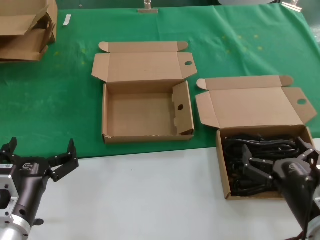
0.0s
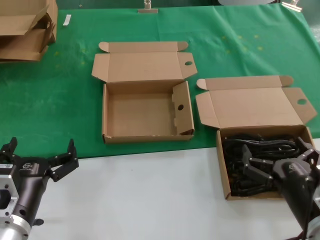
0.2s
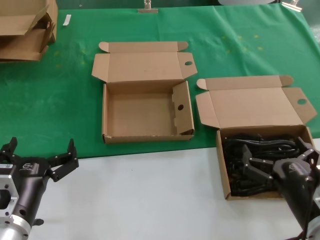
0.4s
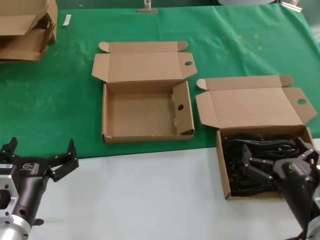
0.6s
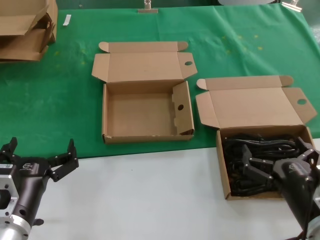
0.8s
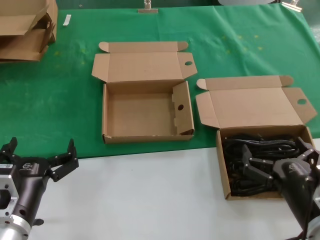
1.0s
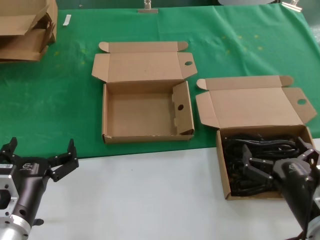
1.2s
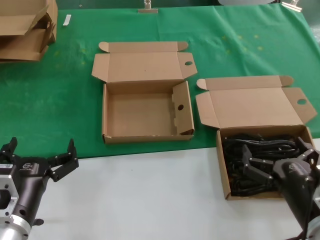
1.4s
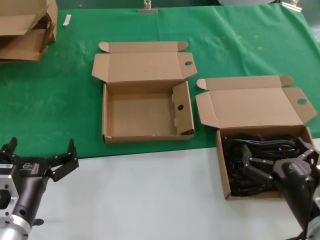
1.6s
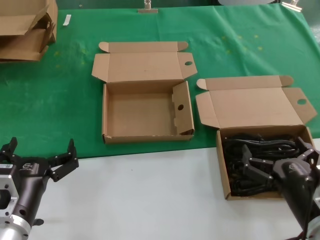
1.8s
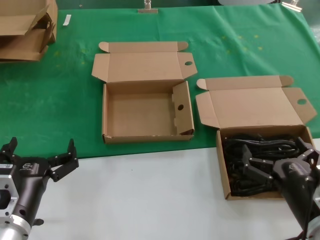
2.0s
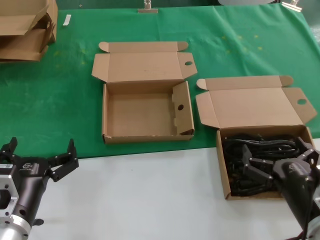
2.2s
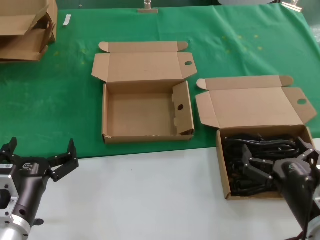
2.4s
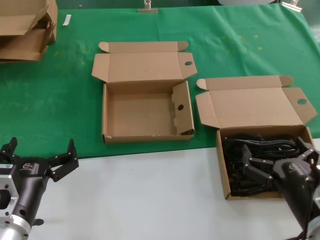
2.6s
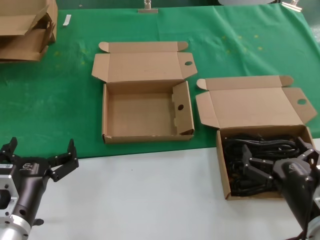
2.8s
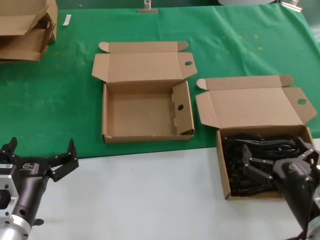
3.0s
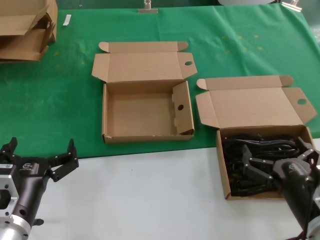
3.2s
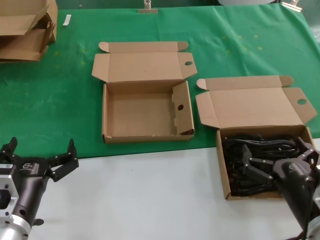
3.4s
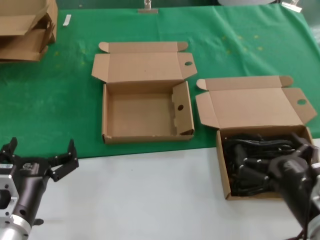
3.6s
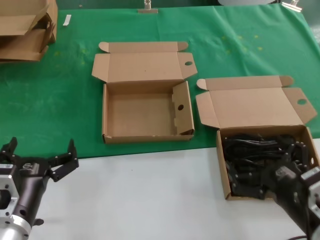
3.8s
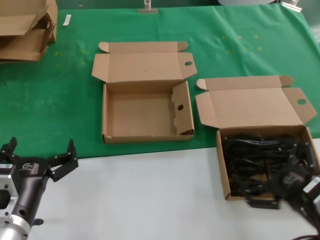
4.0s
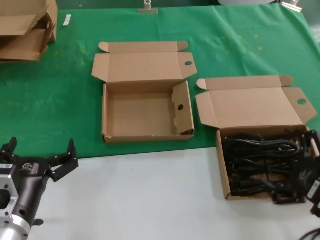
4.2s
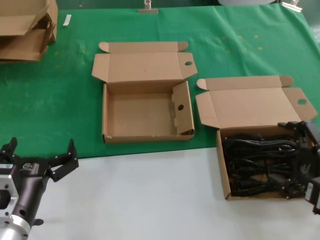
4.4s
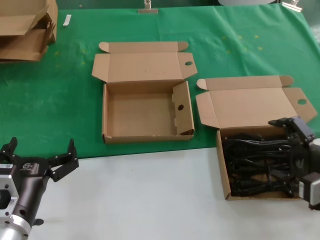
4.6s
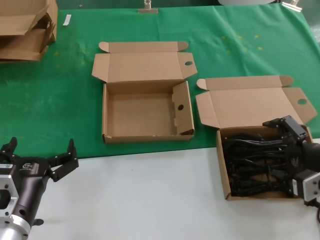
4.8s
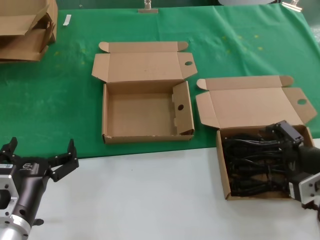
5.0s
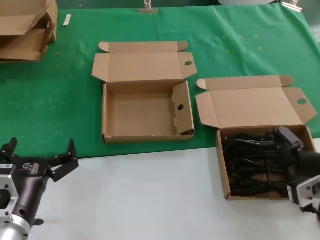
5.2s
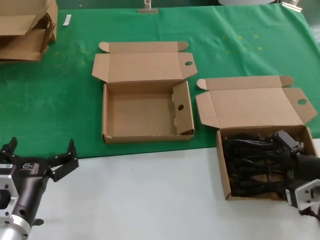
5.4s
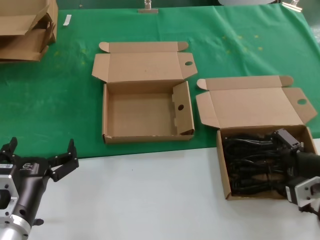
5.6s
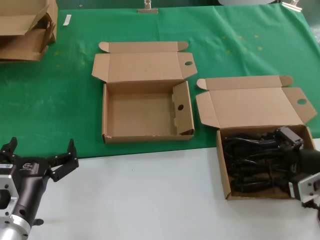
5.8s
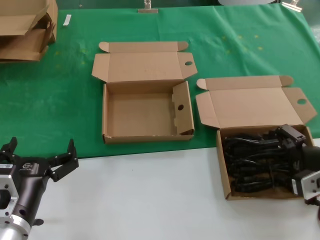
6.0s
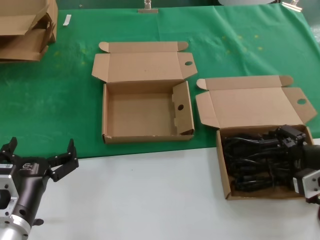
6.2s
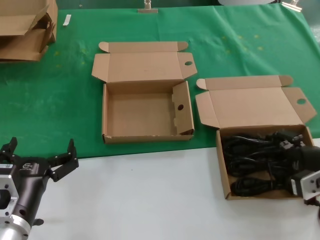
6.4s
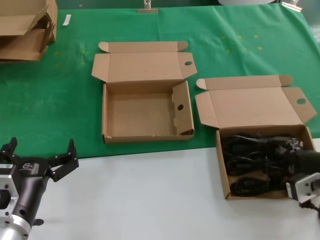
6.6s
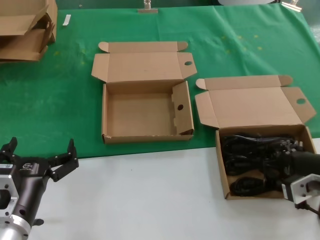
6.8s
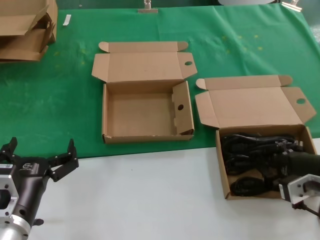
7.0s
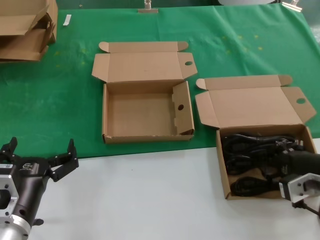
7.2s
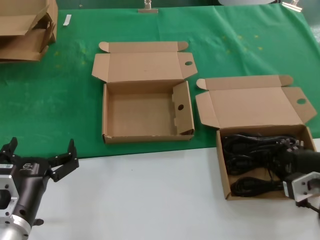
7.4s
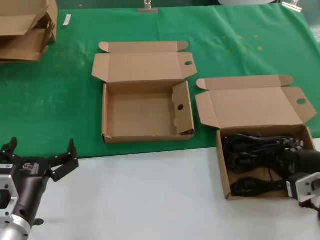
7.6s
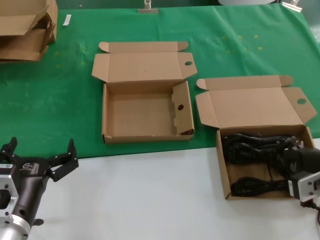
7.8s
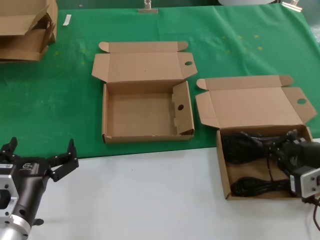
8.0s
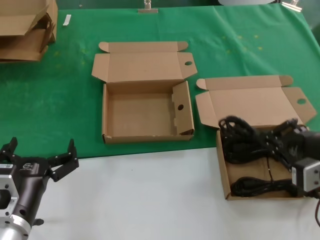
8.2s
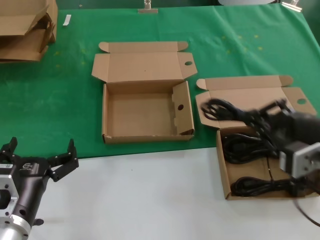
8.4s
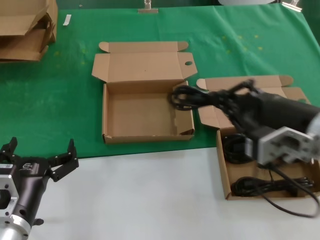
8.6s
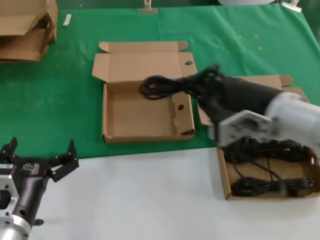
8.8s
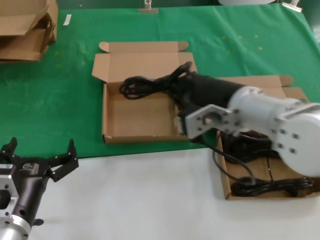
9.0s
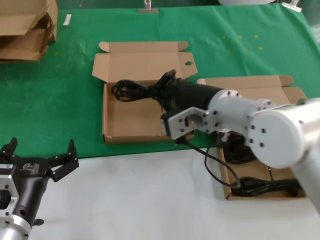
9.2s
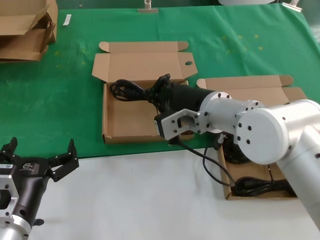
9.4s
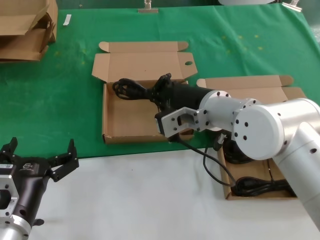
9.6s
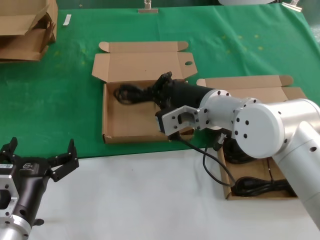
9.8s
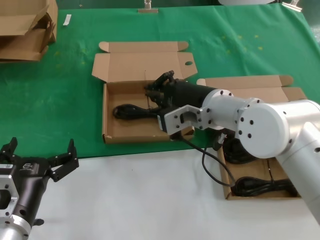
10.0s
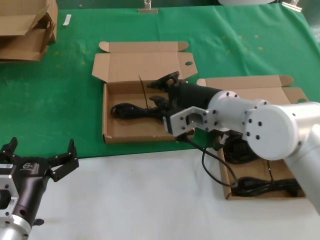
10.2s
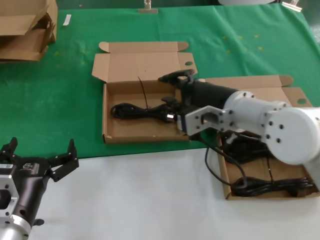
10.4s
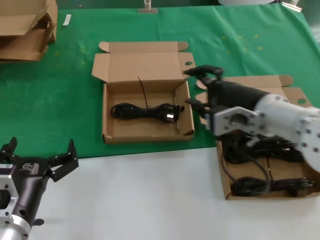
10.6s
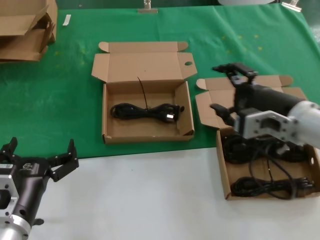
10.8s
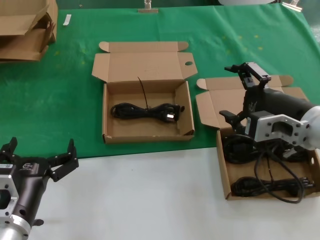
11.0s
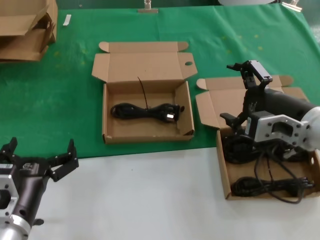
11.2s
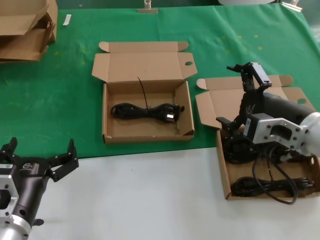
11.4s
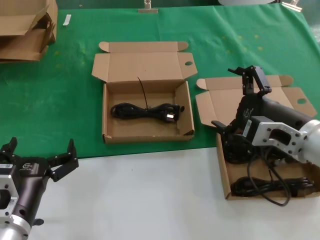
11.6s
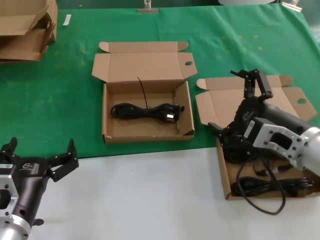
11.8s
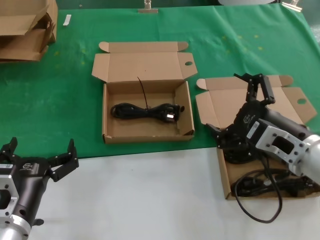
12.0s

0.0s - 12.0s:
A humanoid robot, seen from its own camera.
Task of the whole recording: take the parts from the box containing them and put them into an empty box.
Step, 0.0s - 6.8s: Grasp the data cable.
Step, 7.0s - 10.0s: Place the data cable in the another box.
0.0s - 3.0s: Neither hand changes place.
3.0s - 4.4s: The right hand moves to the right and upward, some 10 cm.
4.4s - 6.0s: The right hand moves forward, approximately 5 cm.
6.0s - 7.6s: There are only small adjustments of the hands.
7.6s - 9.0s: The right hand goes some 20 cm to the left and upward.
9.0s - 10.4s: The right hand changes place by approximately 5 cm.
10.4s - 12.0s: The right hand moves to the right, backward and downward, some 15 cm.

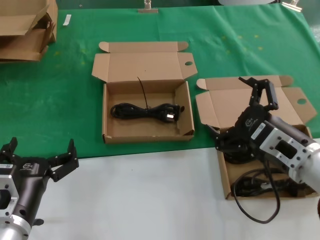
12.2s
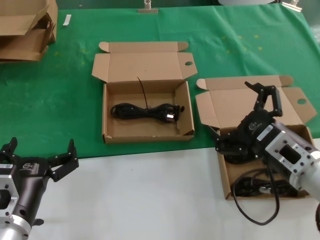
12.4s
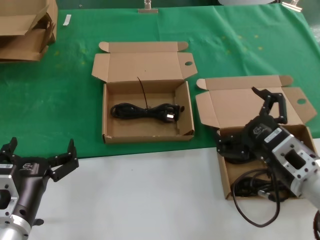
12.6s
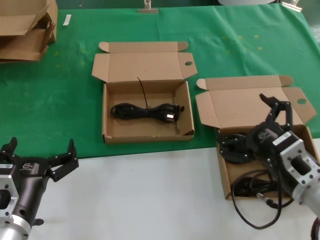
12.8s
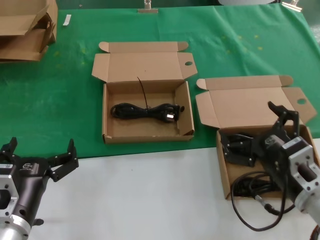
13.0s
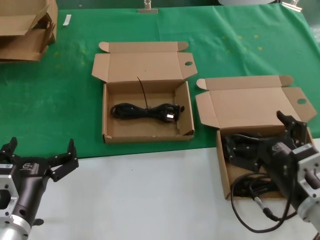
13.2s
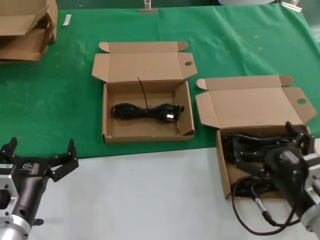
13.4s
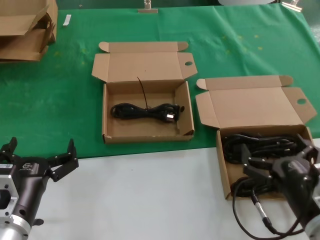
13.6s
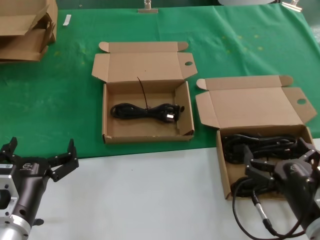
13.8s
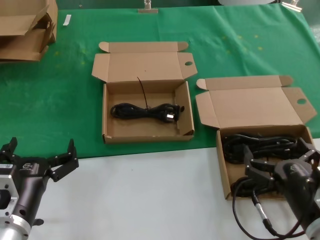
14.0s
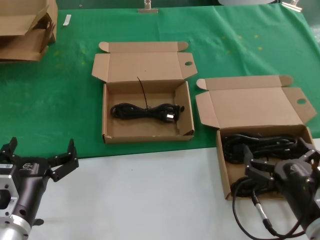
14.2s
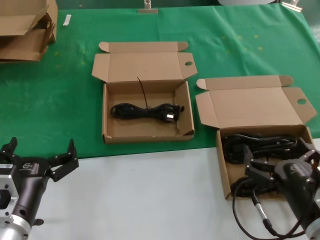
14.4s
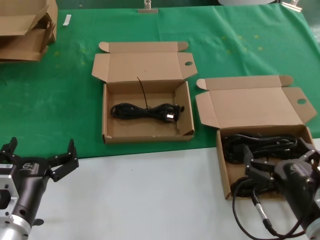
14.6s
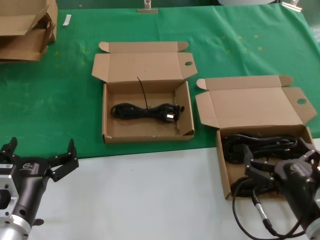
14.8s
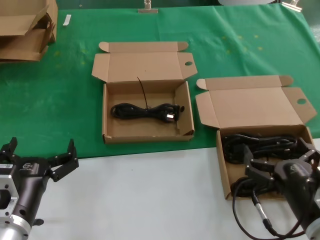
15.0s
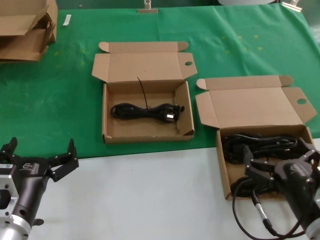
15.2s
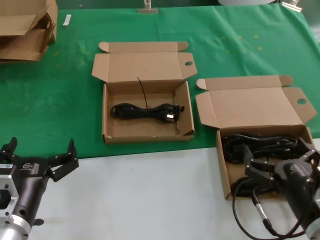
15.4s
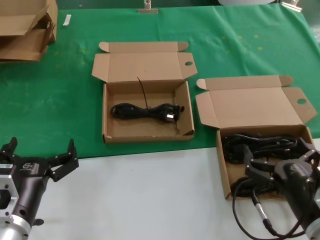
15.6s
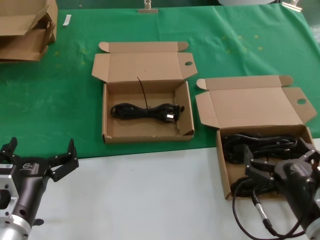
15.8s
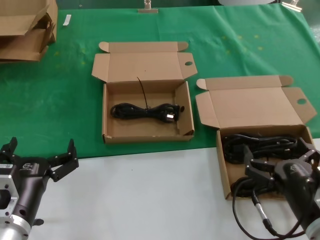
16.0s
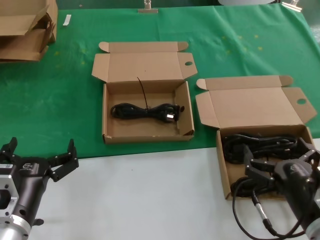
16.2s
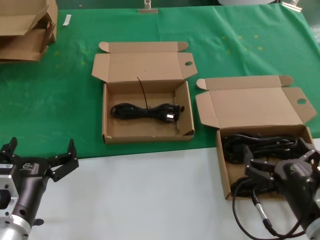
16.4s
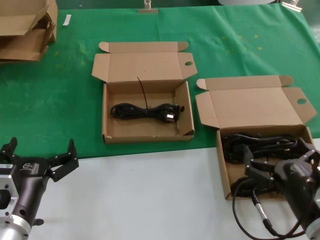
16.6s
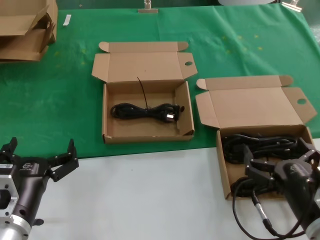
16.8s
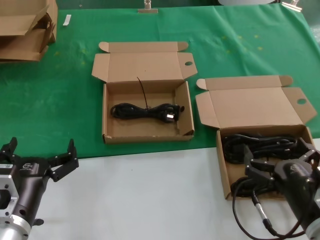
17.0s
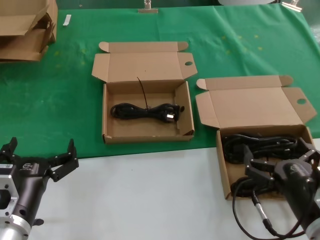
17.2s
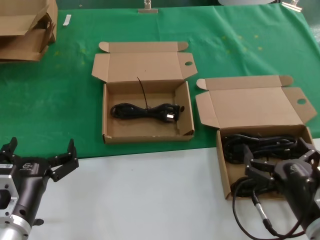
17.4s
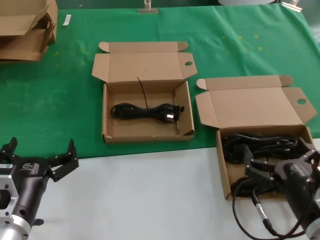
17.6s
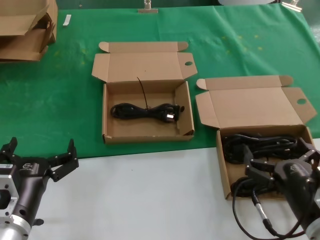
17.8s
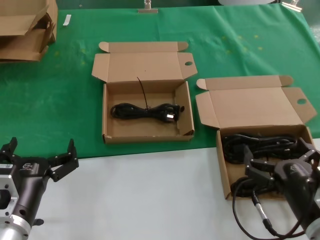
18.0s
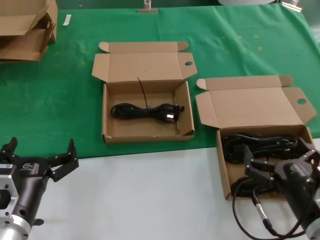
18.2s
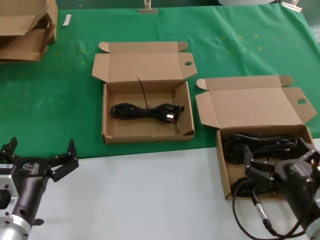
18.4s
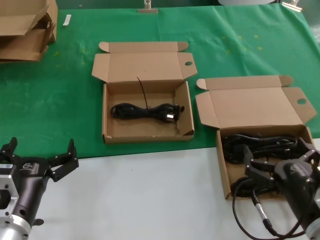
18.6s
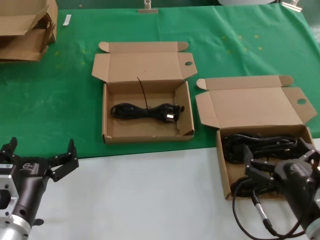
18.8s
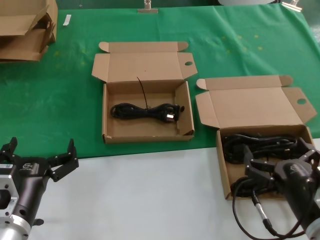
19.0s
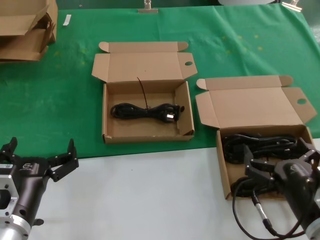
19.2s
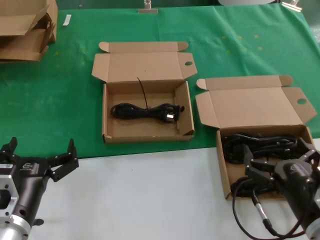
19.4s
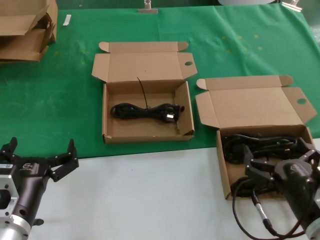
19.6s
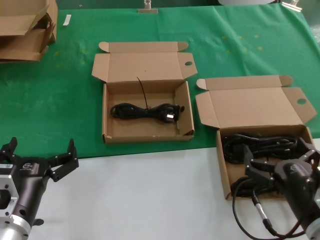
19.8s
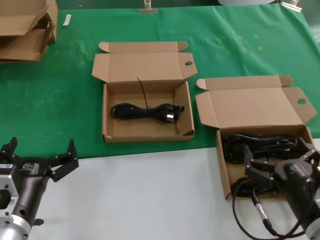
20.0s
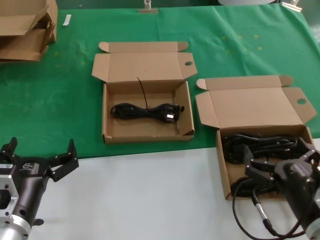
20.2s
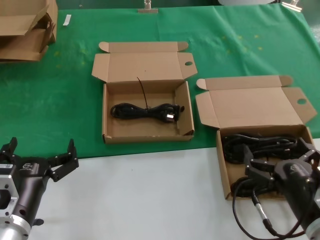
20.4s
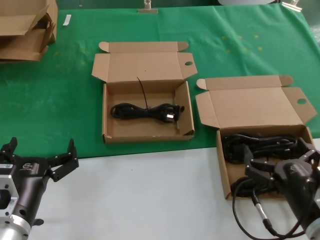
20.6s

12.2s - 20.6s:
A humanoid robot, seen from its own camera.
Task of the whole recording: take the parts from the box containing them and put them into an empty box.
12.2s - 13.6s: The right hand is displaced downward and backward by about 10 cm.
13.6s - 20.6s: Neither hand changes place.

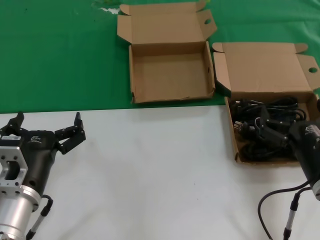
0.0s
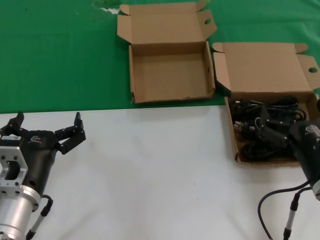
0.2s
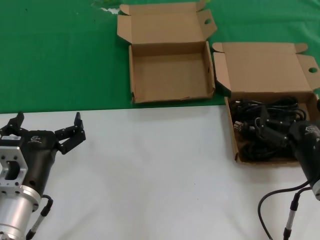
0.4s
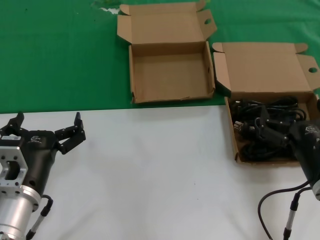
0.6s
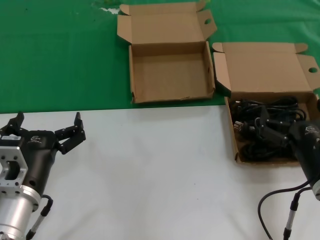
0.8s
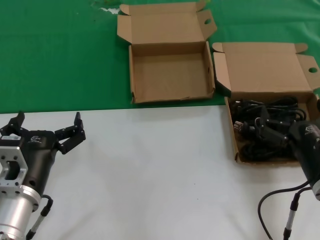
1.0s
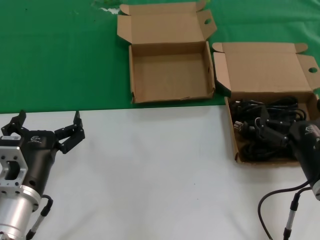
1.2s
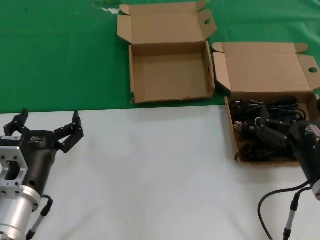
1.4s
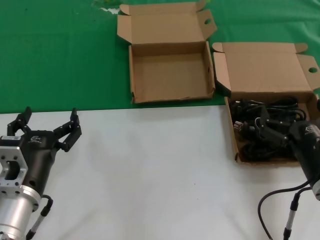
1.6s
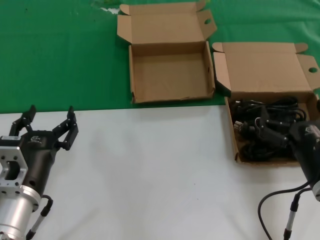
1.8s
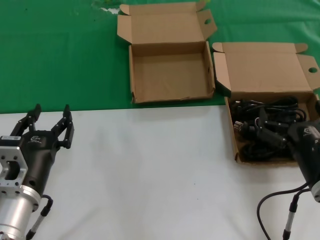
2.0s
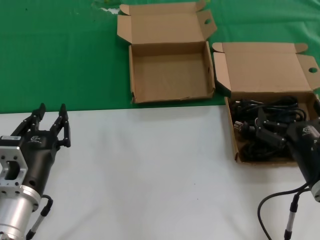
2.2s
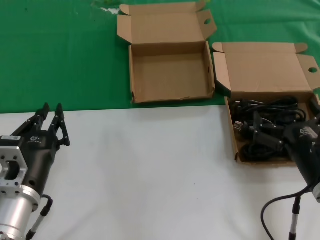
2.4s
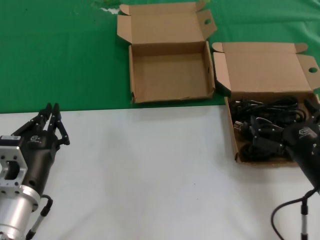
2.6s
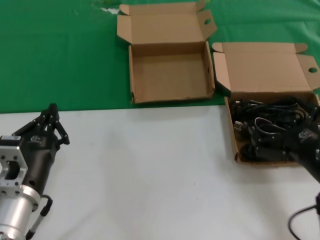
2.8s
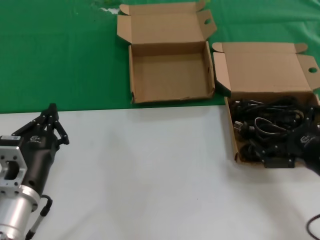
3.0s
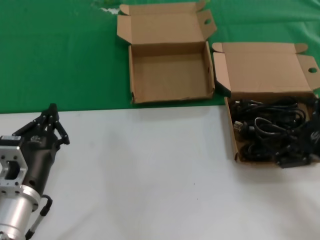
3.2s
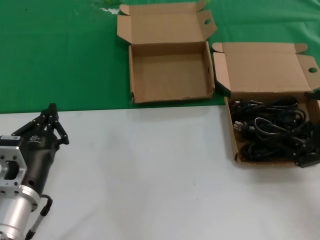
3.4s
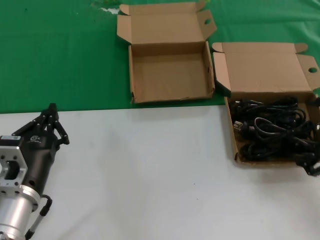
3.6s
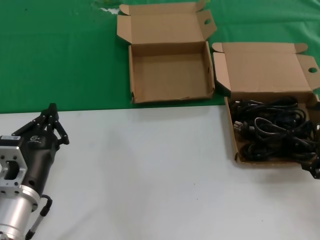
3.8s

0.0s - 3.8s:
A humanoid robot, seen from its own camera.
Task of the whole recording: take the parts from the box containing them and put them into an empty box.
0.0s - 1.2s: Neither hand changes place.
1.2s - 2.6s: The hands make only small movements.
2.6s - 3.8s: The right hand goes roughly 15 cm to the right and upward.
